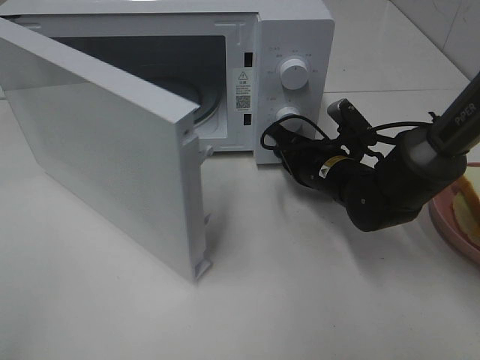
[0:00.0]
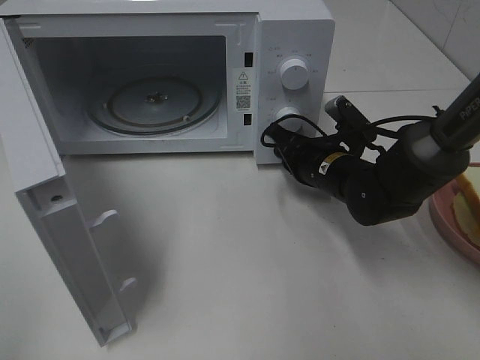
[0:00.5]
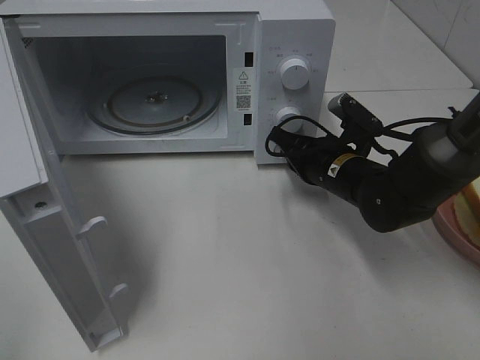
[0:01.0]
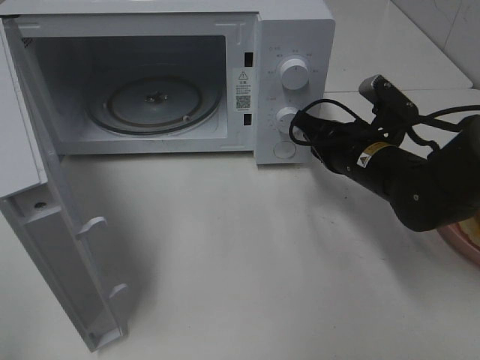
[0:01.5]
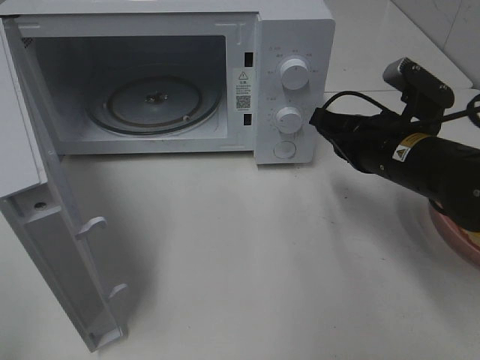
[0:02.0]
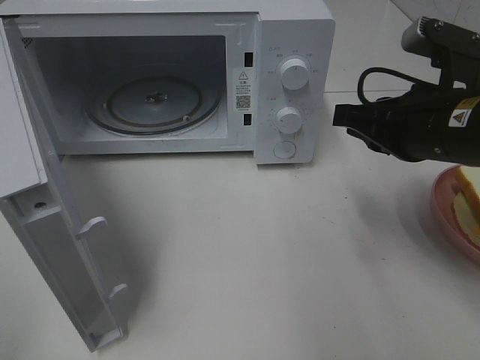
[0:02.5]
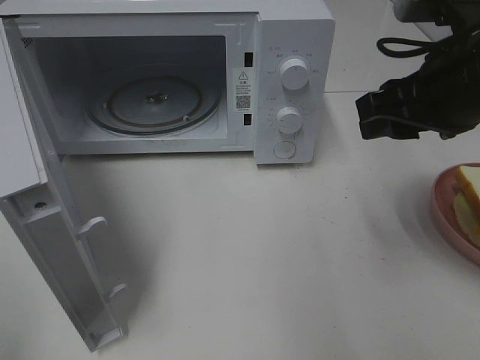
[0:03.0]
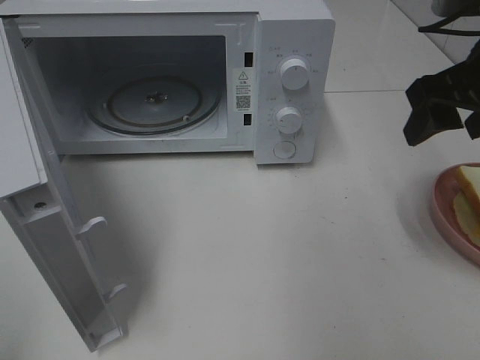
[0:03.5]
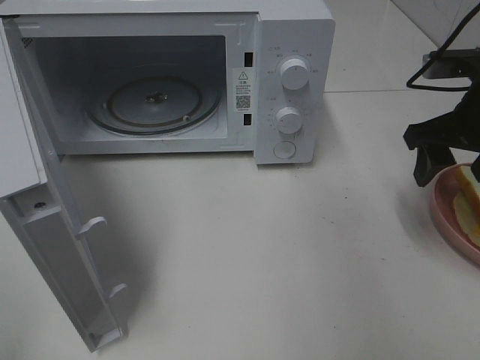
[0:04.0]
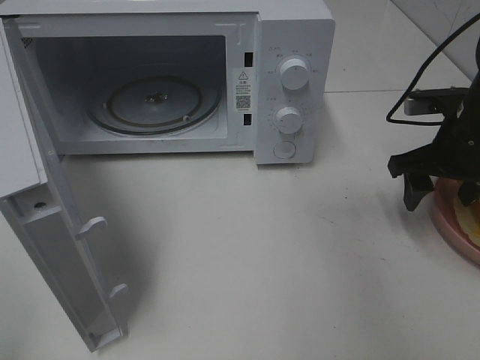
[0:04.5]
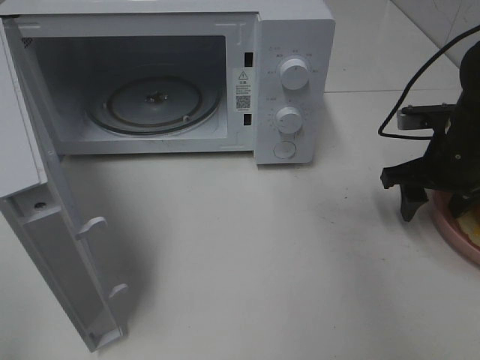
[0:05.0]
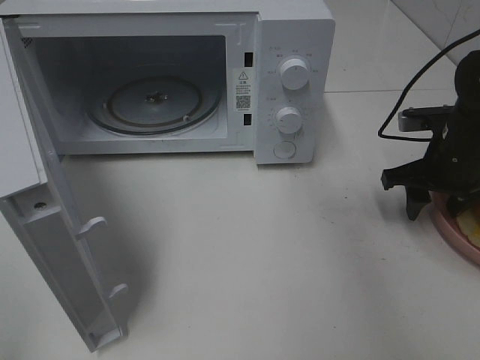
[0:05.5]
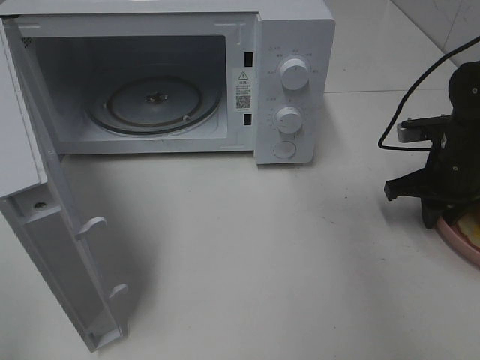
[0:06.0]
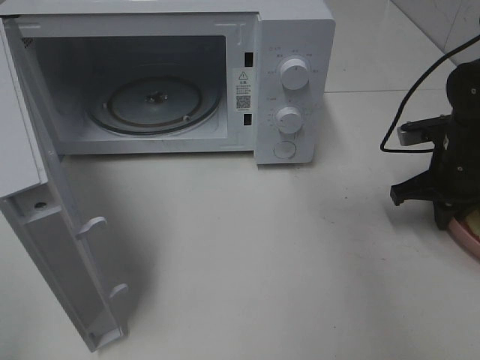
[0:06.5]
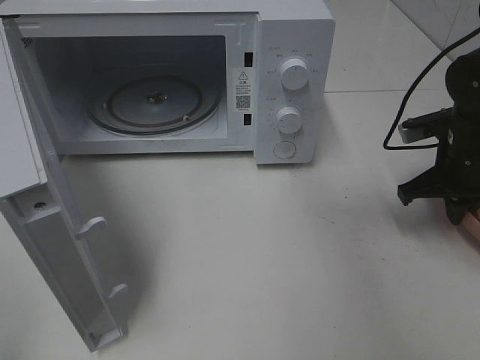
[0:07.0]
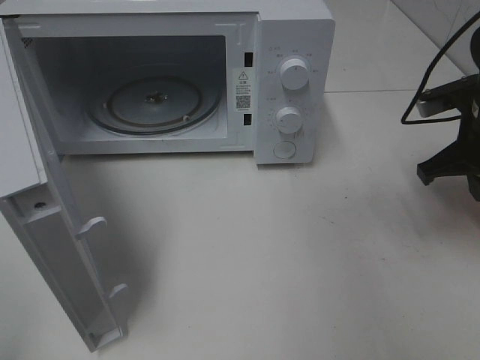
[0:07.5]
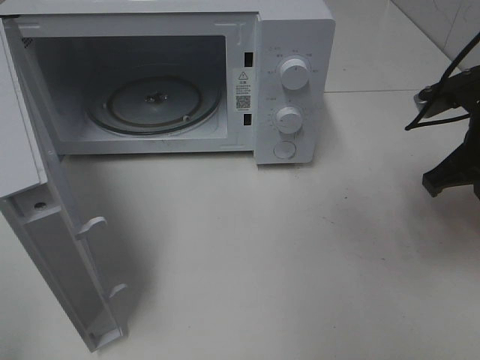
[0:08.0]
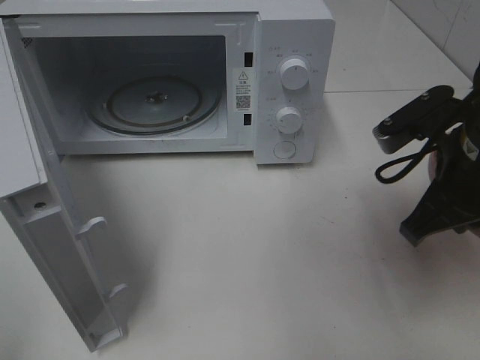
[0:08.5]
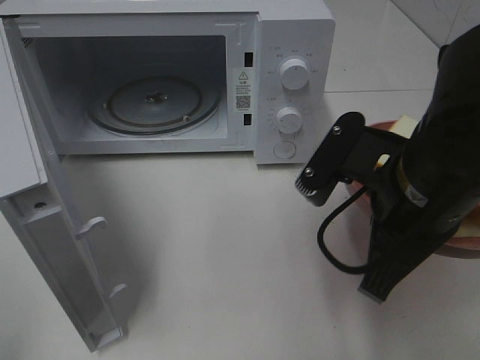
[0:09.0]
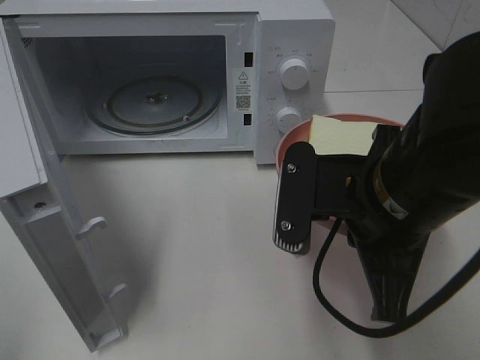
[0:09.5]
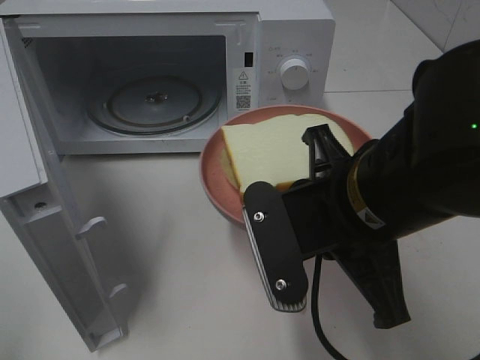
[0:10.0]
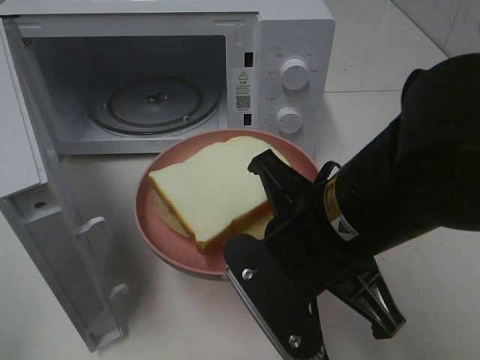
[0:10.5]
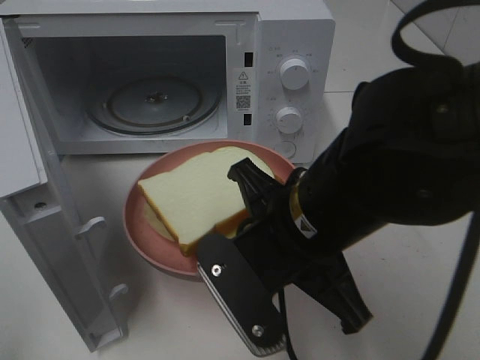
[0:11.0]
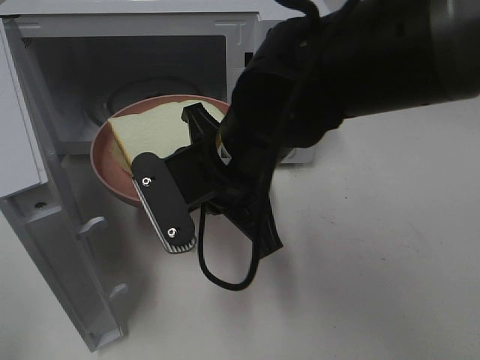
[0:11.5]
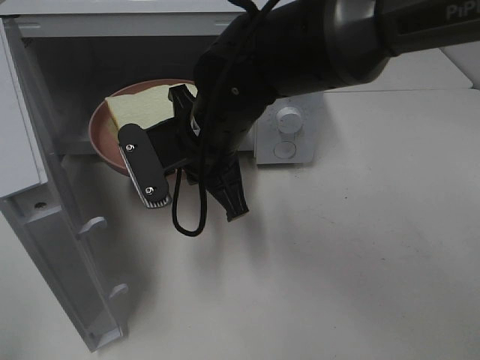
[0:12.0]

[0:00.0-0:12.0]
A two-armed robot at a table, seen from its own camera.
Task of the whole recording: Heat Sandwich.
Step, 0:02.0 to 0:06.5: Right hand: grab the plate with the sandwich.
0:00.0 to 0:02.0: The right gripper travels upward and backward by approximately 10 cm.
0:02.0 to 0:04.0: The right gripper moves to the right and upward, some 10 cm, and opens.
0:04.0 to 0:06.0: The right gripper shifts some 10 cm downward, and closes its fingers.
0:06.0 to 0:08.0: The right gripper is displaced upward and backward by about 10 cm.
0:08.0 to 0:10.0: The right gripper shifts some 20 cm to the left and backward.
0:10.0 to 0:12.0: The right gripper shifts approximately 15 cm forward and to the left.

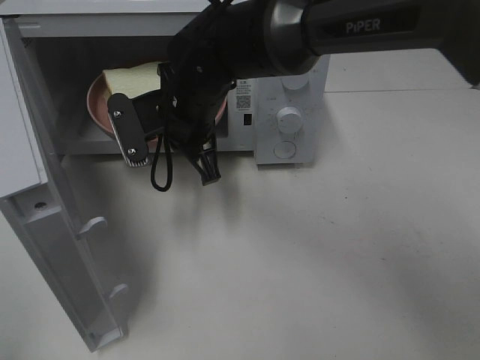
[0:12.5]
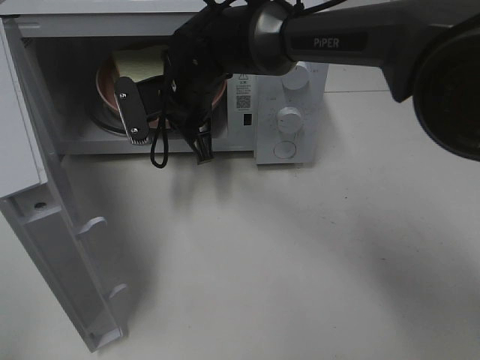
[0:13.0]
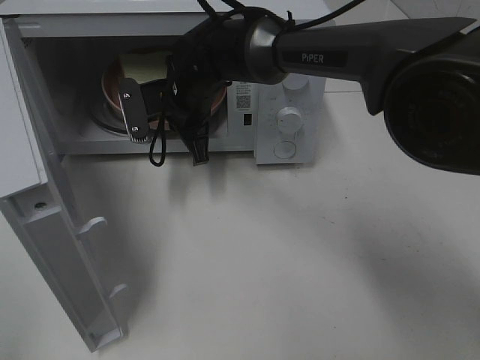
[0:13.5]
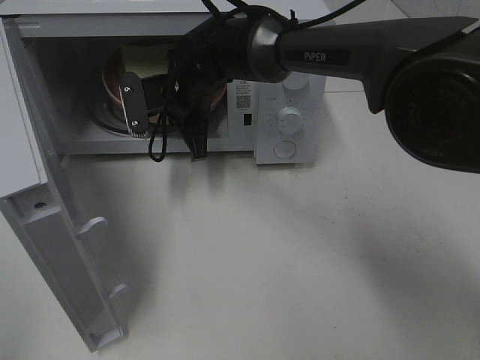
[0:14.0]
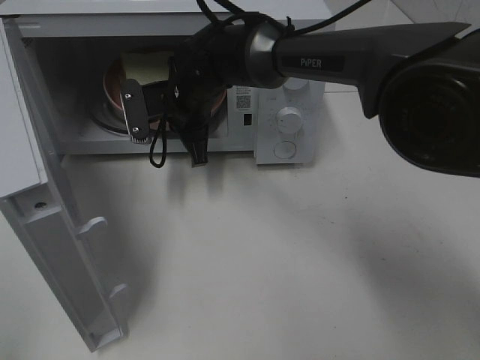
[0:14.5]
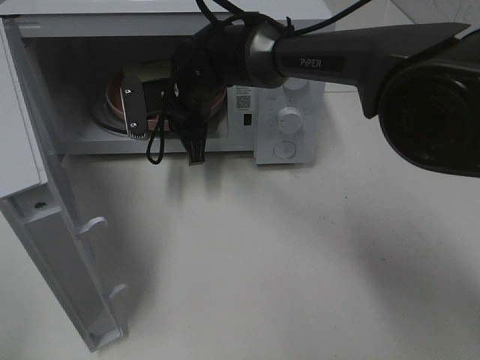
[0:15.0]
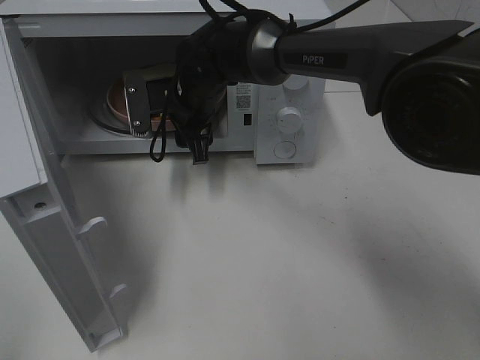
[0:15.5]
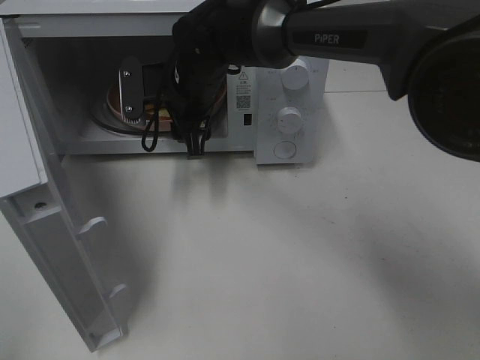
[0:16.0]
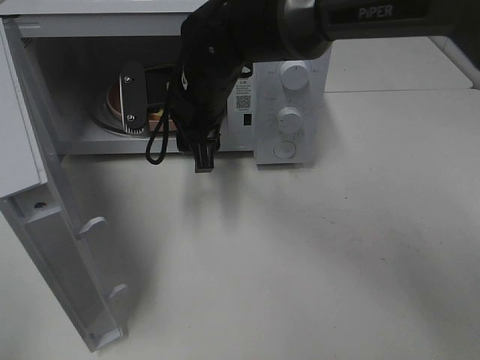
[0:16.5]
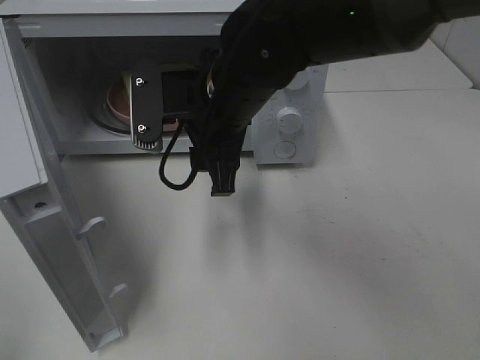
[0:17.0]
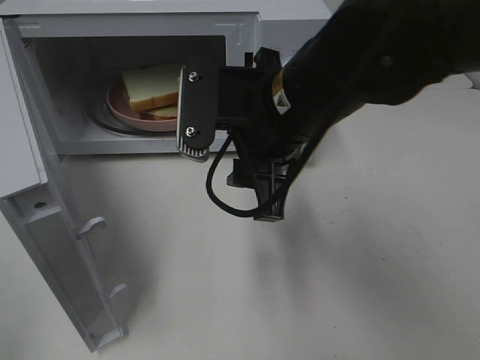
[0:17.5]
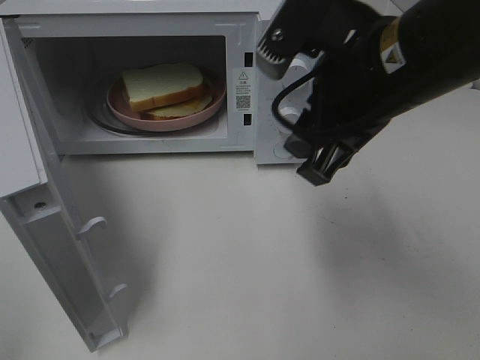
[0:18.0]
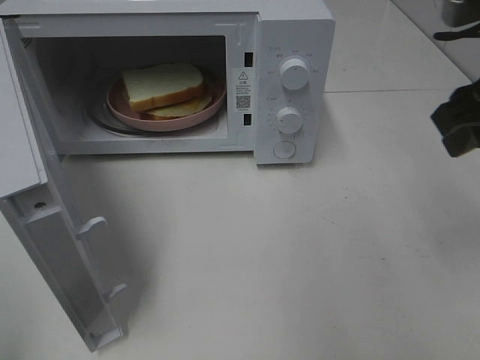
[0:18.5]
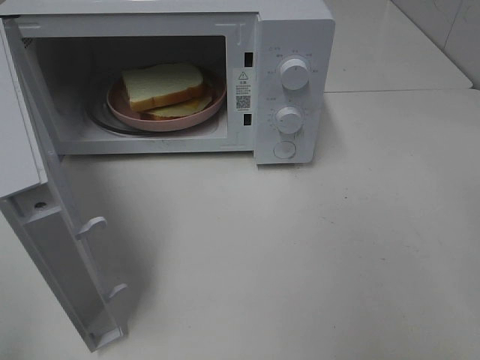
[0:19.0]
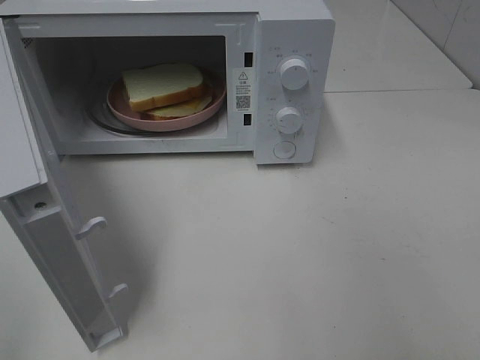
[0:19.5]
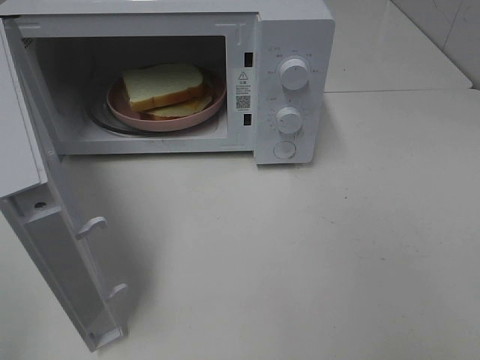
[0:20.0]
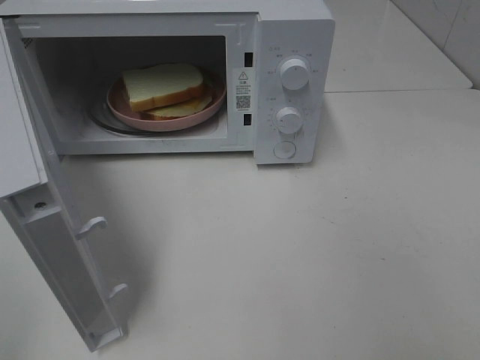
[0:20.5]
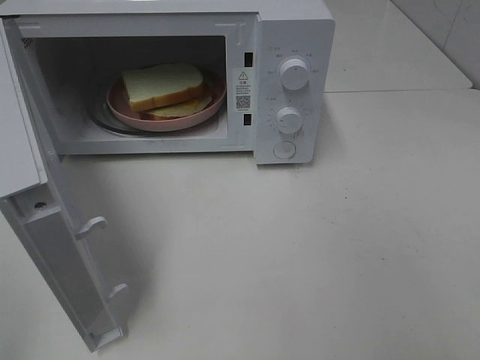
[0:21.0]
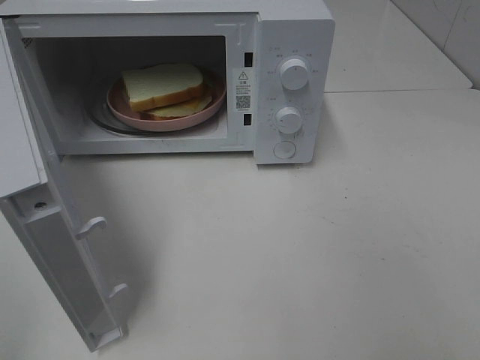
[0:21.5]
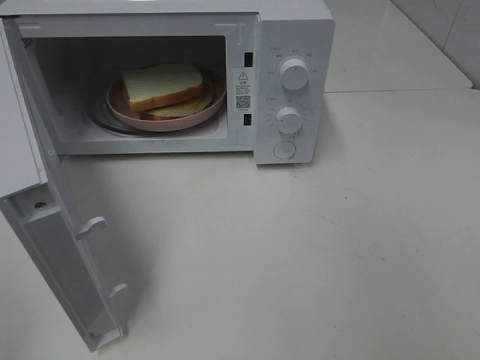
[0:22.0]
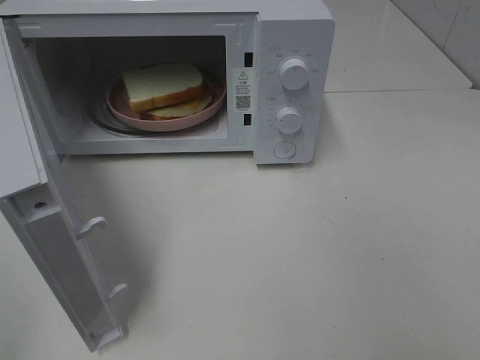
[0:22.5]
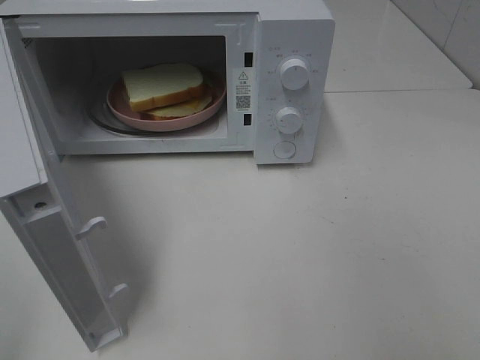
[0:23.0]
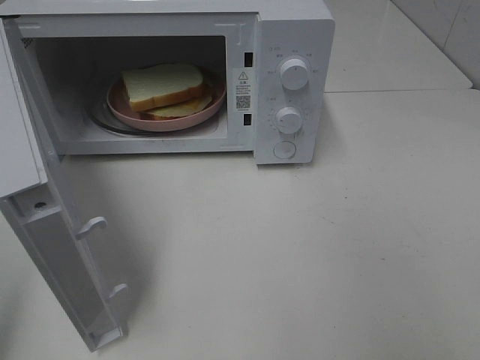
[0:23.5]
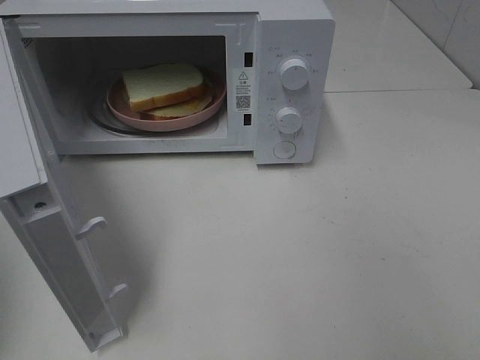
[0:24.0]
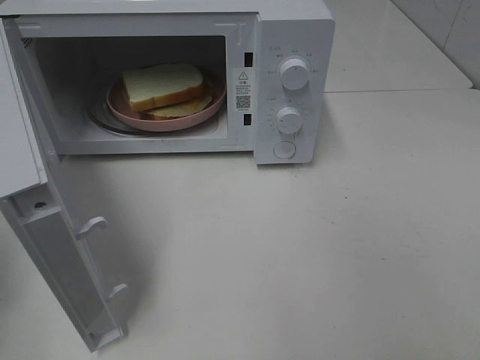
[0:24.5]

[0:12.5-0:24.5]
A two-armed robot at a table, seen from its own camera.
Task of the whole recording: Heat Sandwich.
Step, 0:12.5 to 0:16.0: Right hand: place the plate in the microwave.
0:12.5 to 0:14.5: The right gripper is displaced forward by roughly 5 cm.
0:14.5 to 0:16.5: The right gripper moves backward, about 5 cm, and opens its fingers.
0:16.5 to 0:18.5: The right gripper heads to the right, backward and upward, covering approximately 35 cm.
0:18.5 to 0:20.5: The right gripper heads backward, covering roughly 25 cm.
0:20.5 to 0:22.5: Neither gripper changes place.

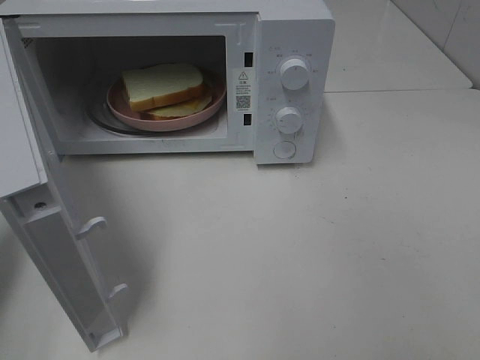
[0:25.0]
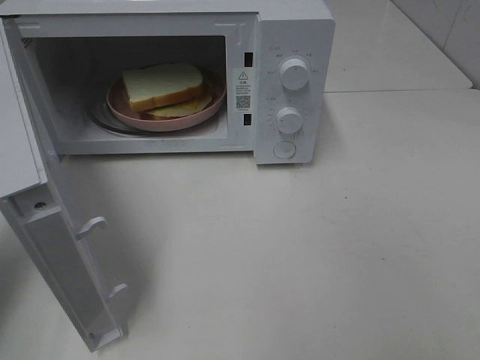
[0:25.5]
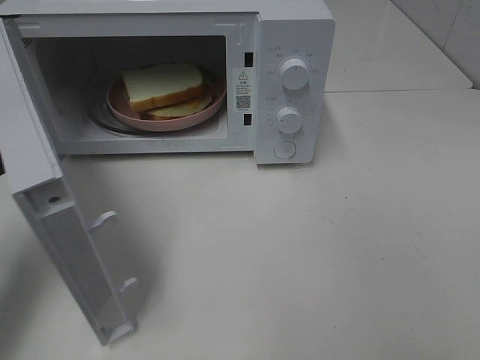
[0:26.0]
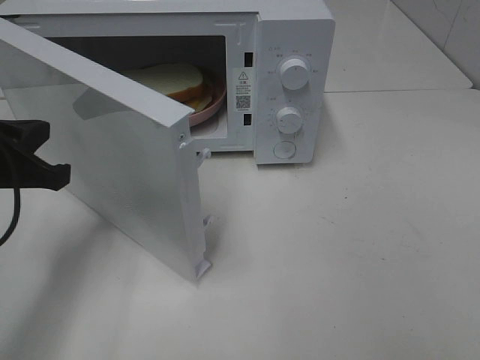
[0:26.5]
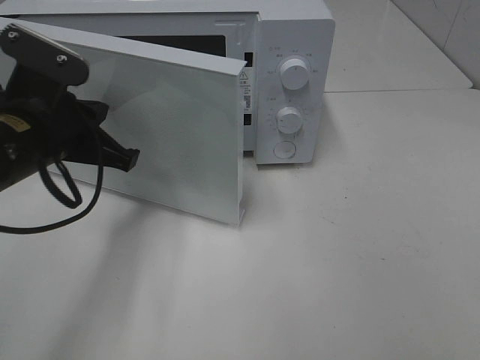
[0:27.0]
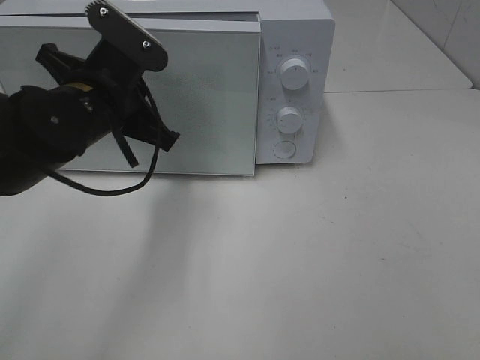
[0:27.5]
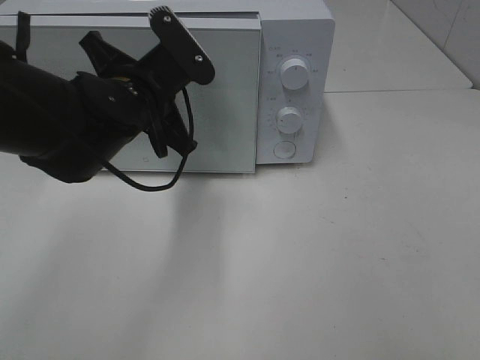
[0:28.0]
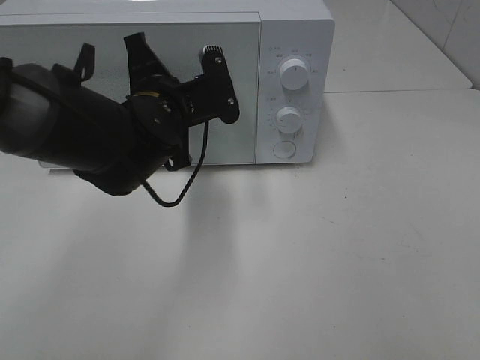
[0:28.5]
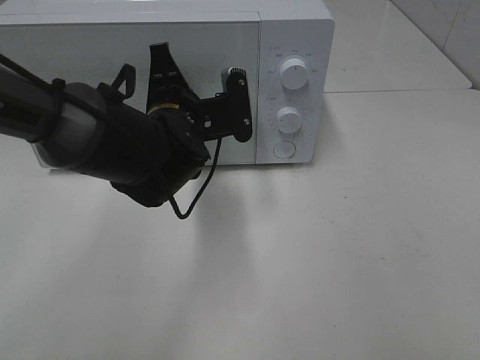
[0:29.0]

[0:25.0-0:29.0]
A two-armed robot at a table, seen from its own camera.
Task of the whole recording: Heat Sandwich.
0:25.0 to 0:27.0: The left gripper goes about 15 cm to the right.
0:27.0 to 0:29.0: The left gripper heads to the right and forward, covering about 15 cm.
